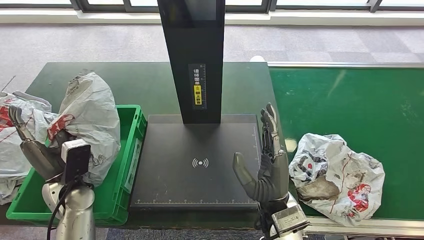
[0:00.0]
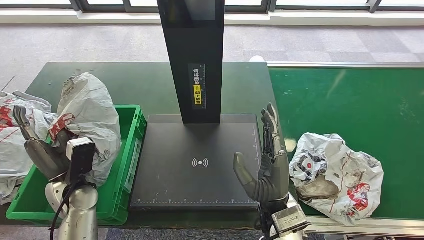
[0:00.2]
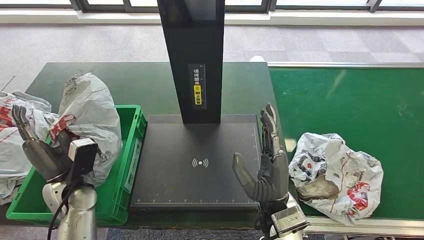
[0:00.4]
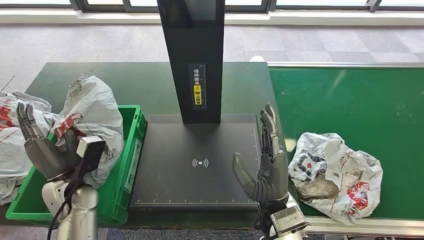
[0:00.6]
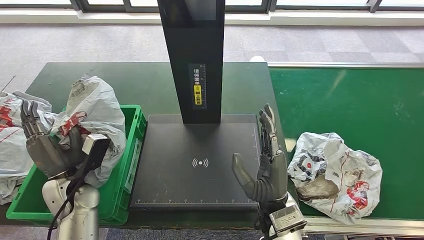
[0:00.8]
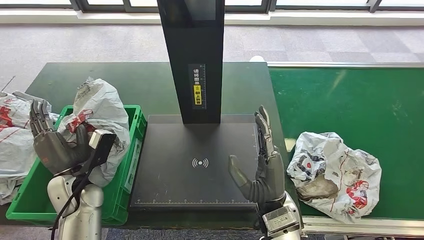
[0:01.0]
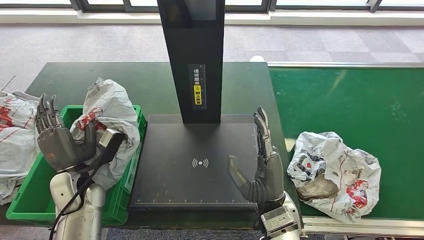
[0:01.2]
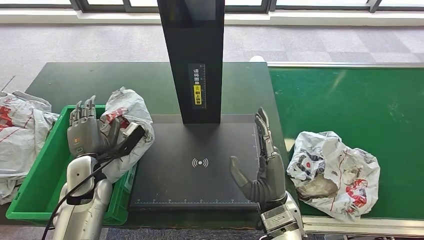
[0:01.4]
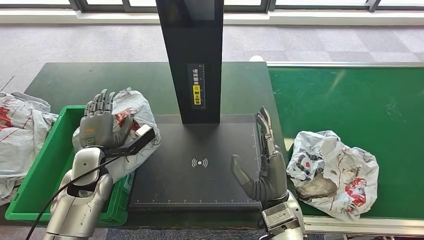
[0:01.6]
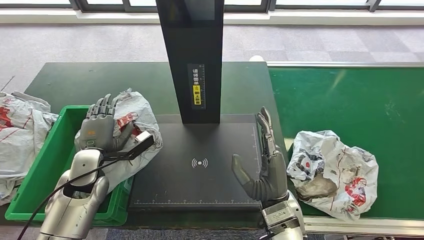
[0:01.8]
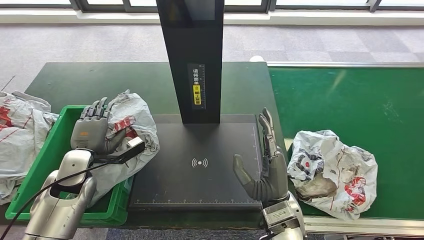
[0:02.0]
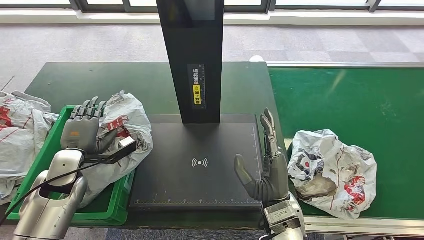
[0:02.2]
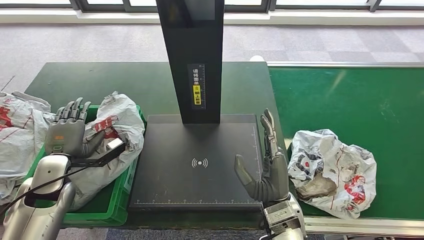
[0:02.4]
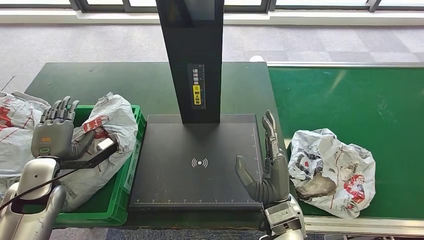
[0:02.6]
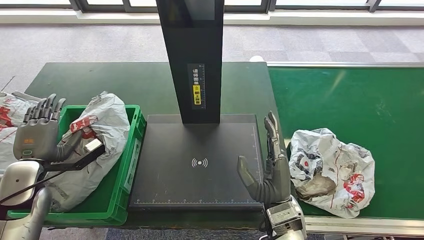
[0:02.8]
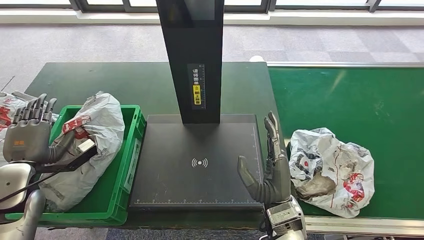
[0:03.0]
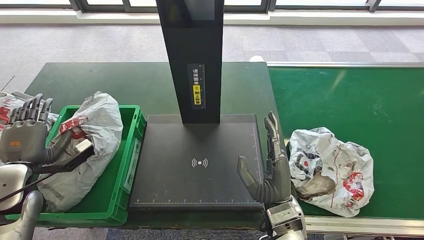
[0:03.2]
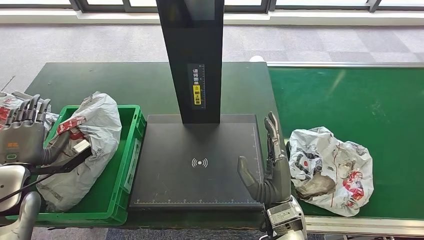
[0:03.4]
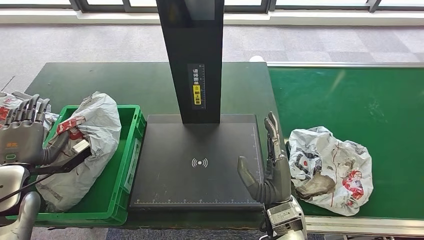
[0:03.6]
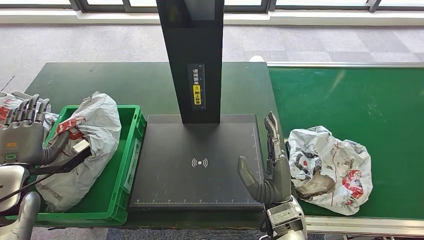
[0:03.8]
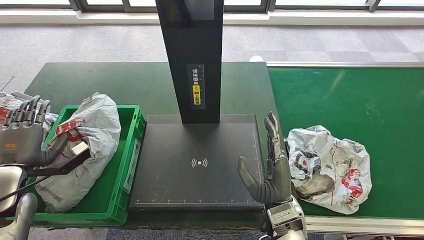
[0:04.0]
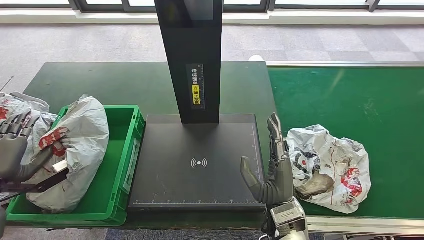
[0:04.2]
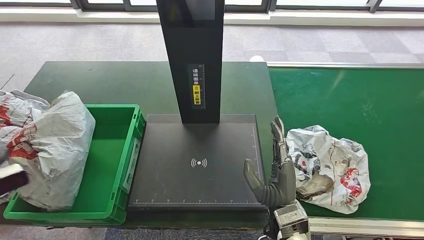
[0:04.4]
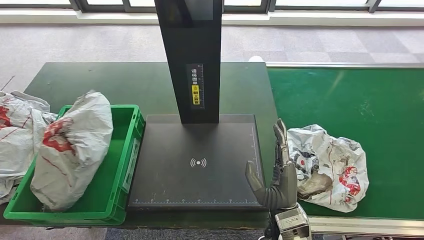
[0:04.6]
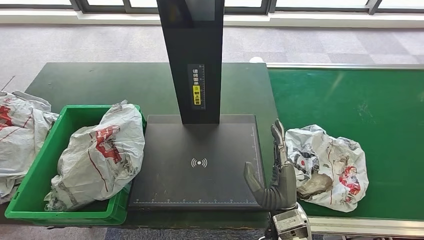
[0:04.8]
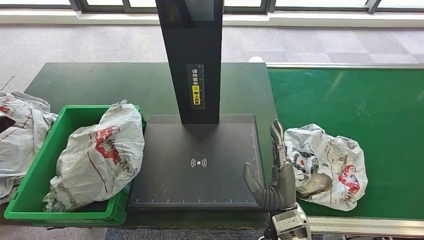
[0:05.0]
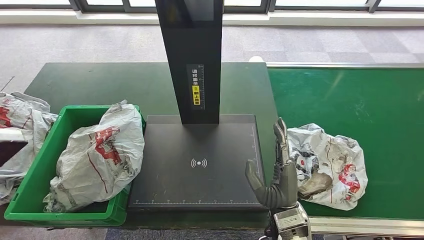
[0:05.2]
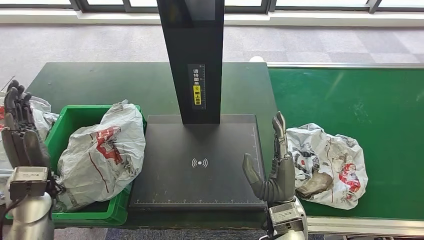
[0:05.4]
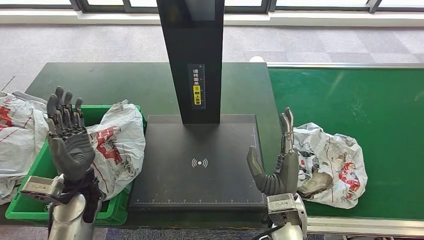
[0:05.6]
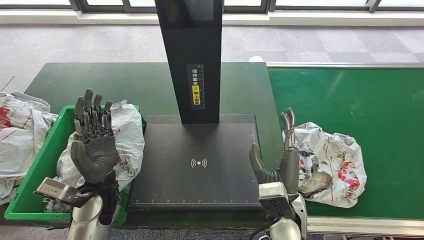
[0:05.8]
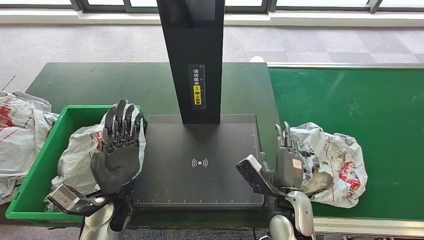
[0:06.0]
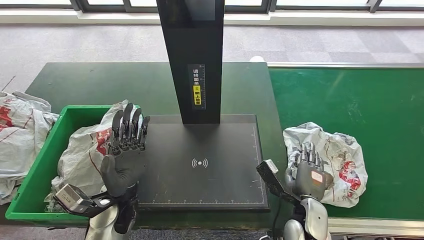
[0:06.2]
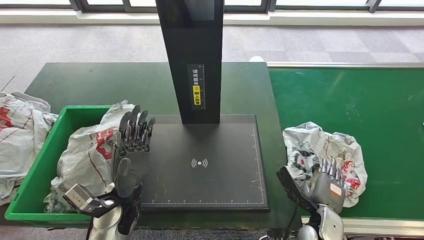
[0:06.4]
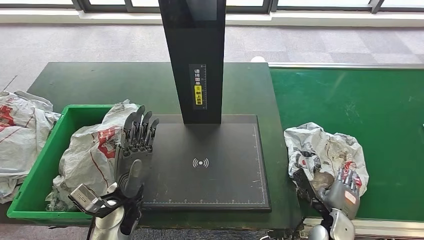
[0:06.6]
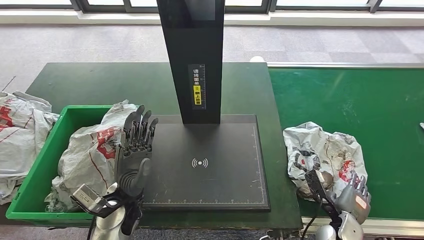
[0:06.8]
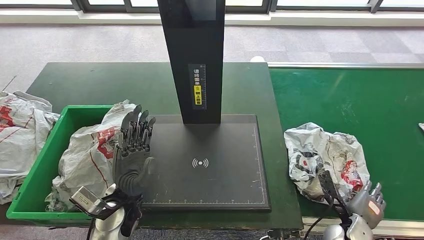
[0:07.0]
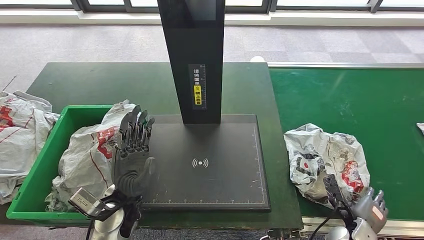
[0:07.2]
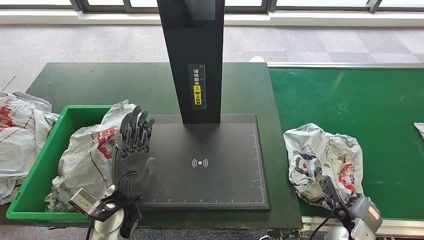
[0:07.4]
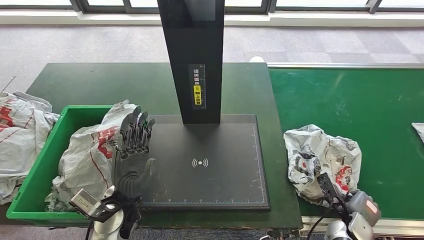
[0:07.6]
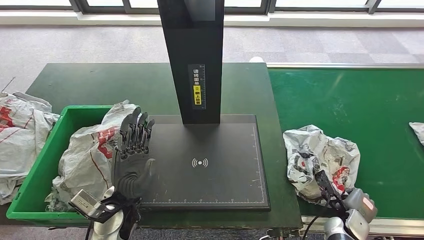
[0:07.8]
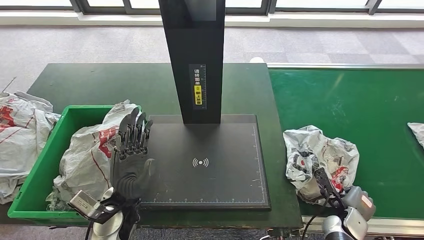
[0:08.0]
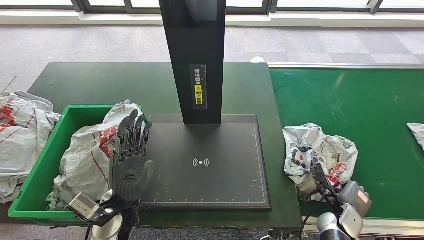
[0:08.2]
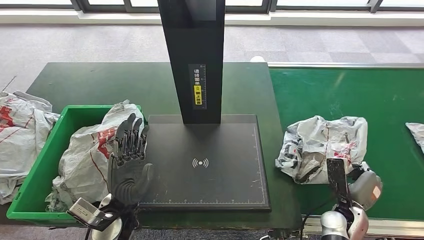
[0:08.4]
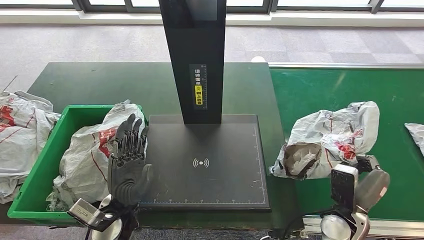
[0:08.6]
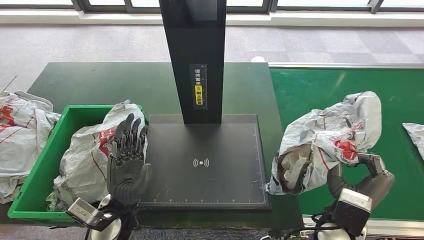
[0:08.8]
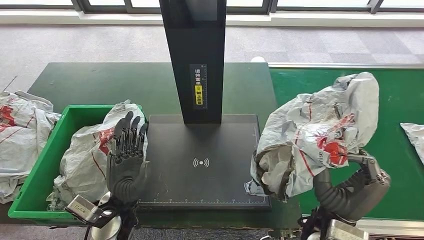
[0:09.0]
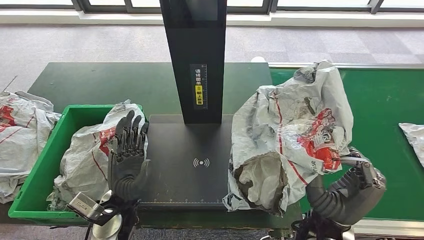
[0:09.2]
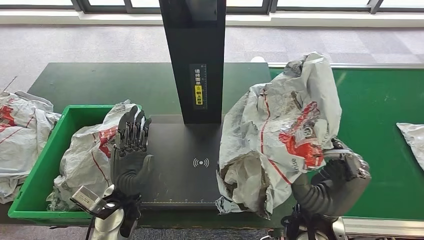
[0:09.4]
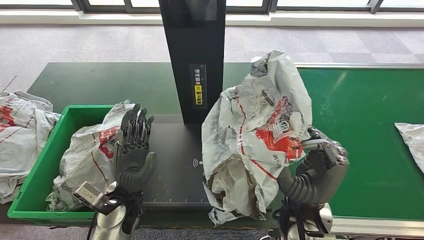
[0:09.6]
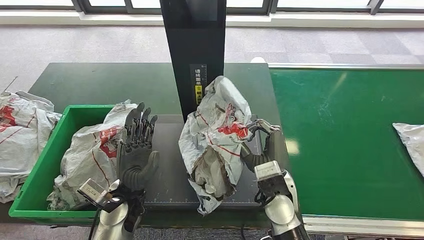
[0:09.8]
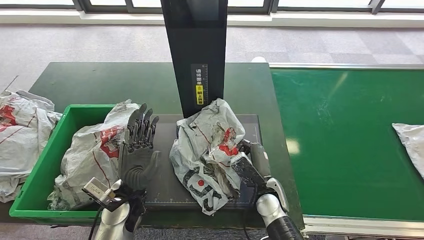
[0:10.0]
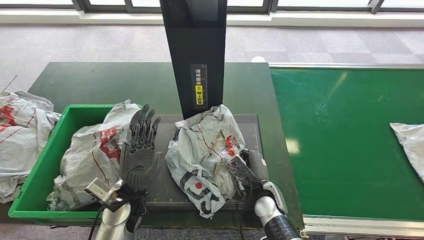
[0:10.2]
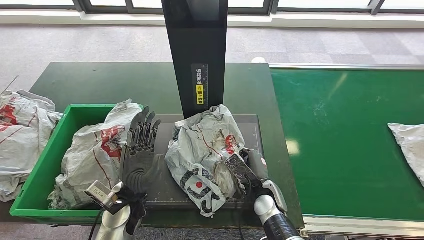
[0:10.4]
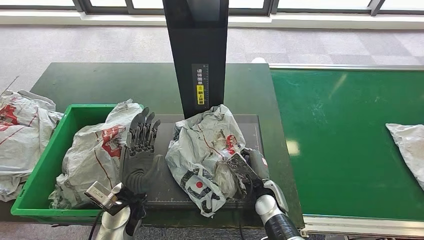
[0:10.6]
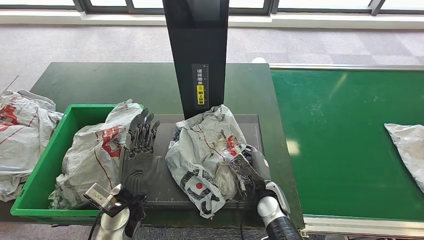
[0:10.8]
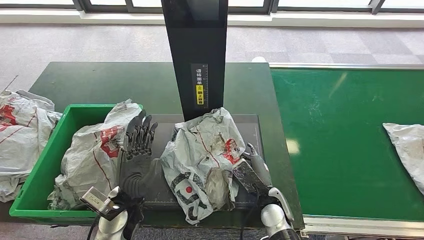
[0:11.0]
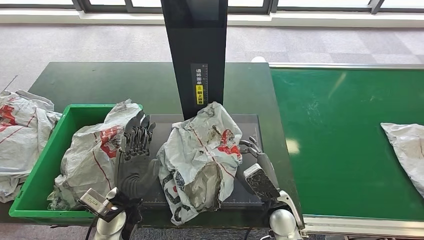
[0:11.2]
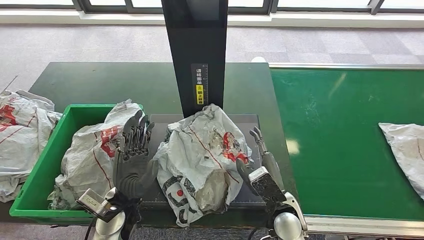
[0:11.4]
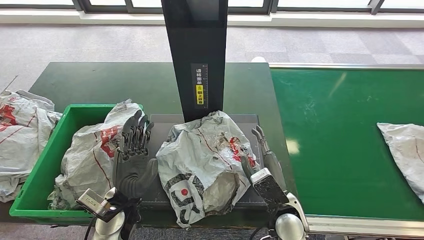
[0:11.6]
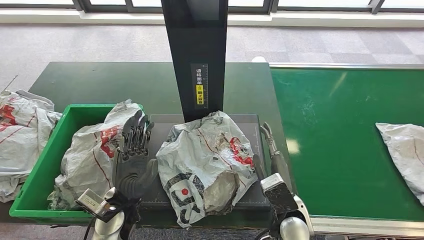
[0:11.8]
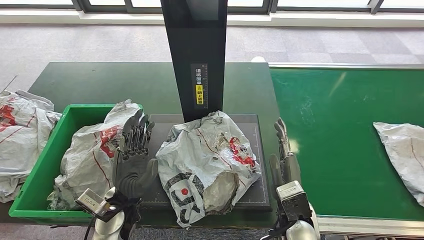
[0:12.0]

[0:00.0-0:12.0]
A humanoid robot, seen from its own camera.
Step, 0:00.0 to 0:05.4: Put the parcel inside the courier box.
Step, 0:06.4 to 0:08.8: Pick up the parcel from the conveyor belt.
Step, 0:09.4 to 0:11.6: Place the parcel onto the inbound machine.
0:00.0 to 0:01.6: The left hand ends up approximately 5 cm from where it was.
0:01.6 to 0:03.0: The left hand travels to the left and backward by roughly 15 cm.
0:06.0 to 0:07.6: The right hand goes roughly 25 cm to the right and downward.
0:07.6 to 0:09.0: The right hand shifts about 25 cm upward and to the left.
0:10.4 to 0:12.0: The right hand goes approximately 10 cm upward and backward.

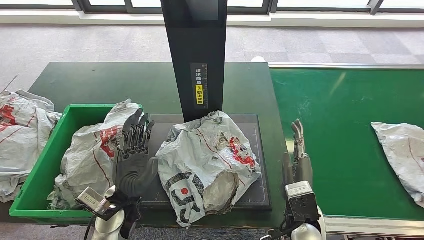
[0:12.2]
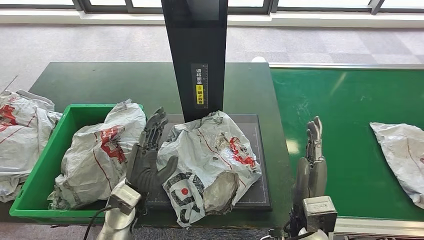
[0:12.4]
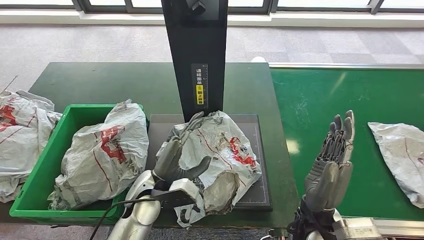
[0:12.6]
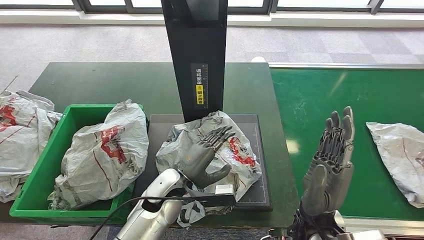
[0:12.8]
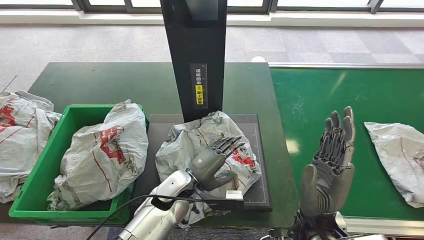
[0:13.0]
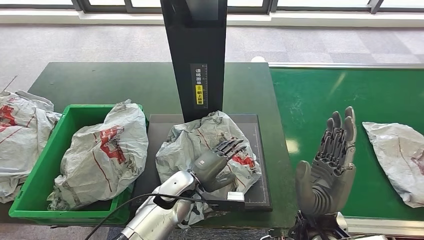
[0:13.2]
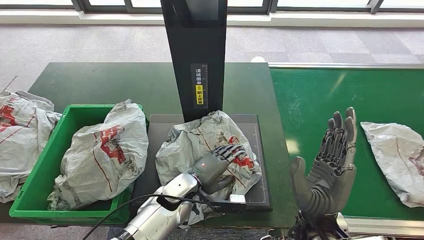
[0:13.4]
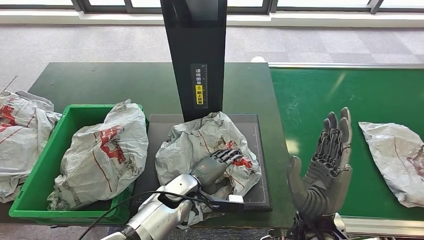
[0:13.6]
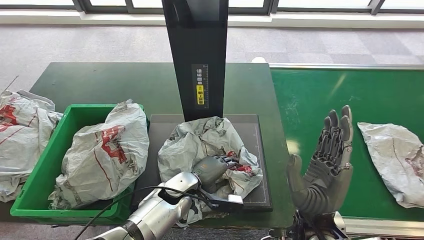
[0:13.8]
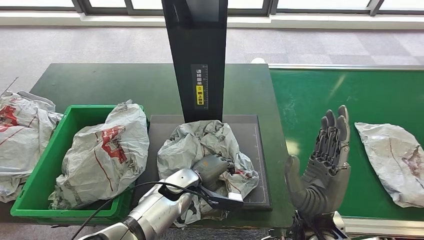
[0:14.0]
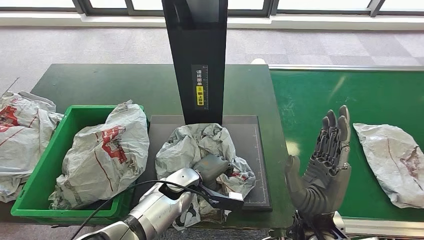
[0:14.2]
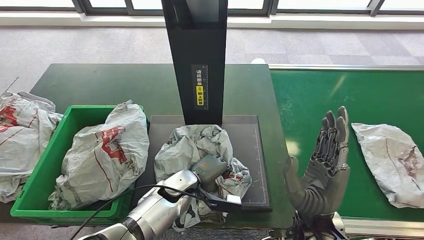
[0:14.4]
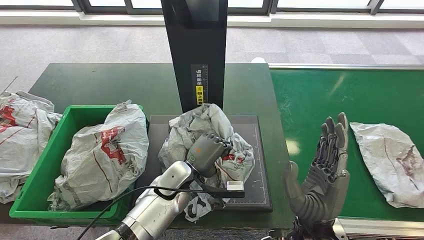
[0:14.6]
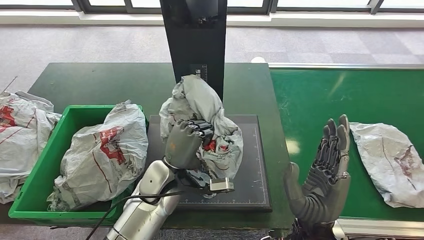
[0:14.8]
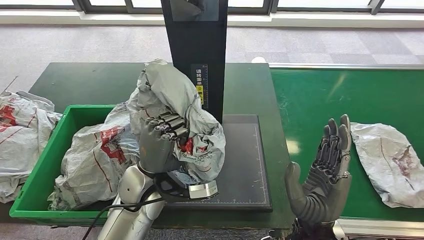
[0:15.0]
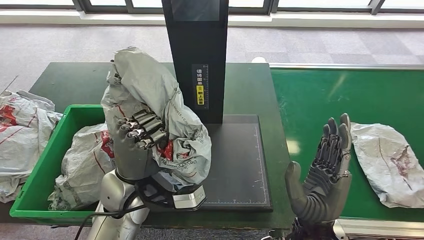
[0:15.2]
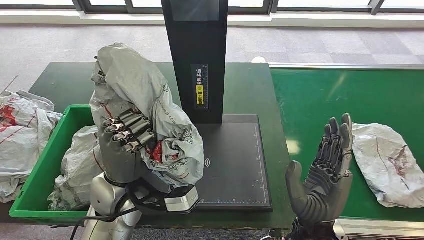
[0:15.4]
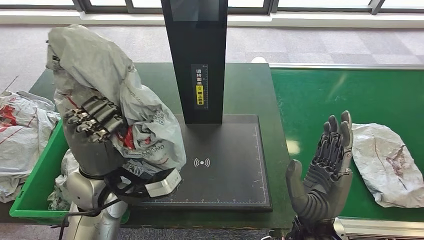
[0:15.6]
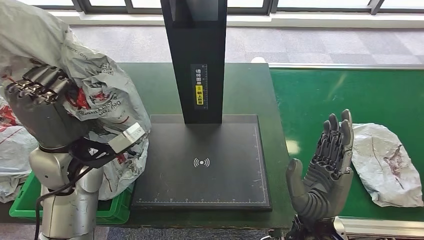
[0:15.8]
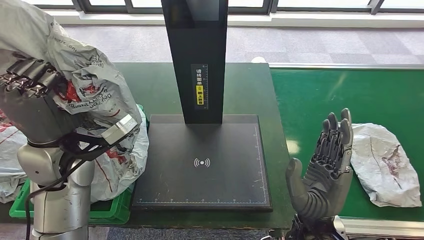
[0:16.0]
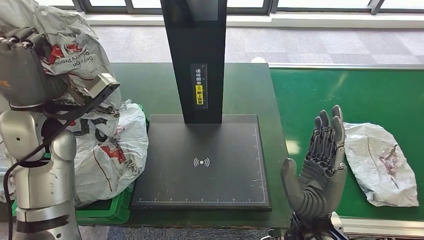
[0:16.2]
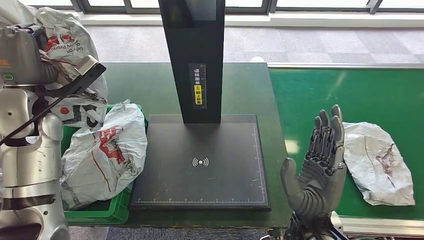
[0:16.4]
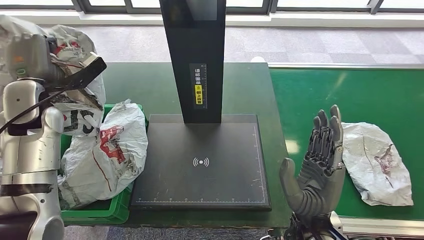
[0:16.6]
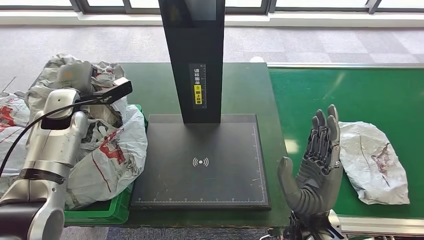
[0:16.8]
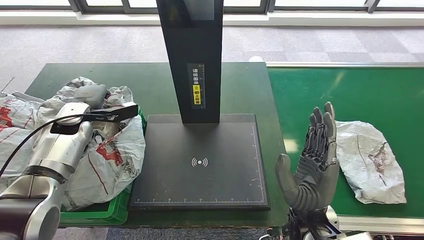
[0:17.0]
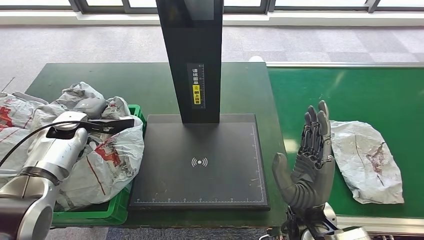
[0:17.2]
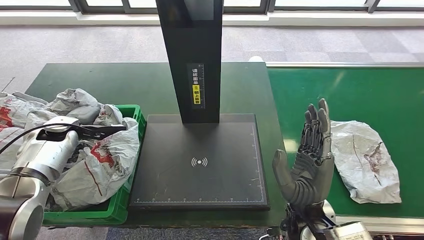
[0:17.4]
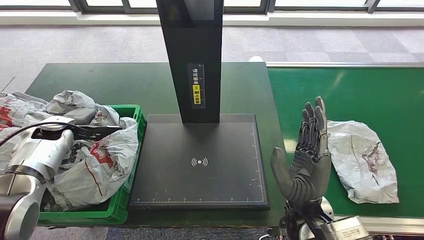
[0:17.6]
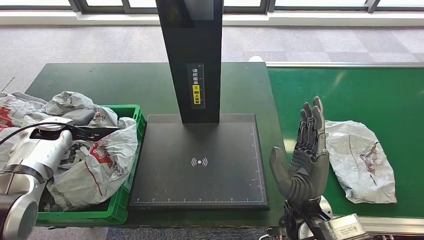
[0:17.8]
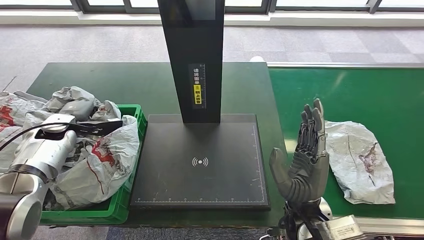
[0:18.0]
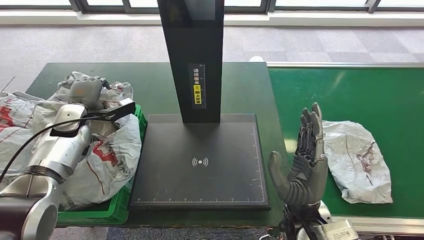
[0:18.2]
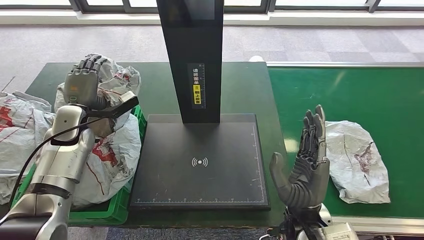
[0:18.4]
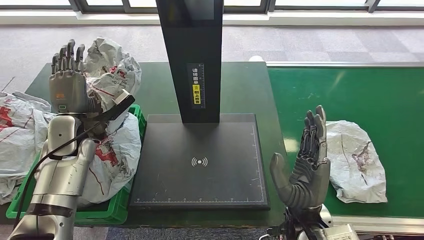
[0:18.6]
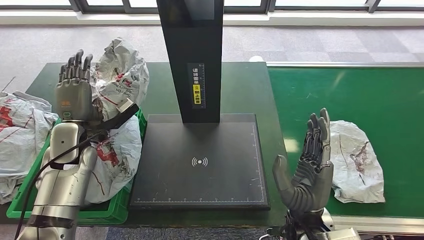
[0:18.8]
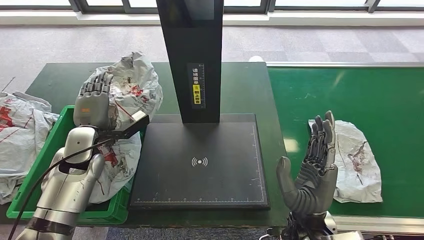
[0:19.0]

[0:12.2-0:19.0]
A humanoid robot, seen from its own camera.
Step, 0:12.6 to 0:15.2: Pick up the parcel from the inbound machine.
0:12.2 to 0:13.6: The left hand heads to the right, downward and forward, covering some 15 cm, while the right hand heads upward, covering about 5 cm.
